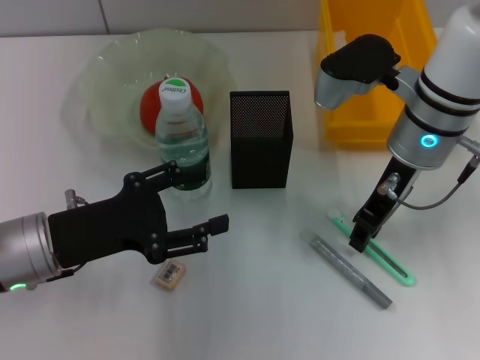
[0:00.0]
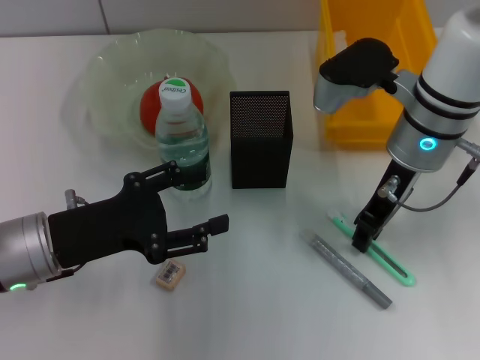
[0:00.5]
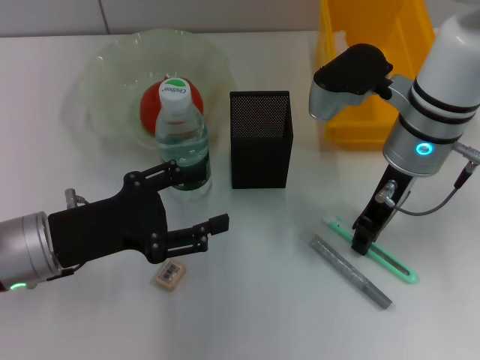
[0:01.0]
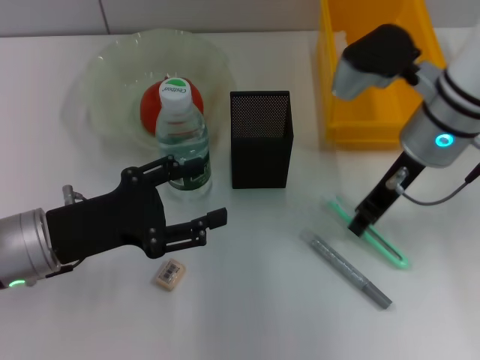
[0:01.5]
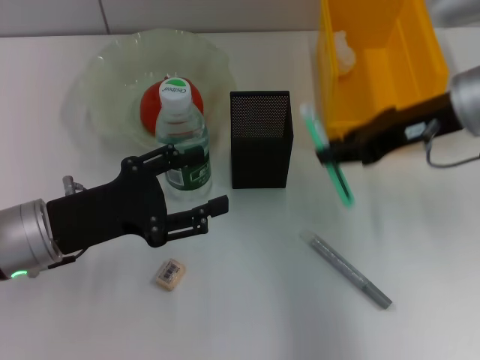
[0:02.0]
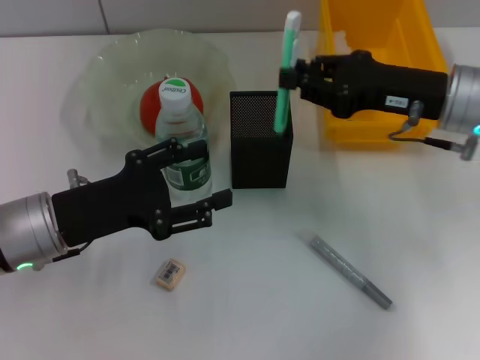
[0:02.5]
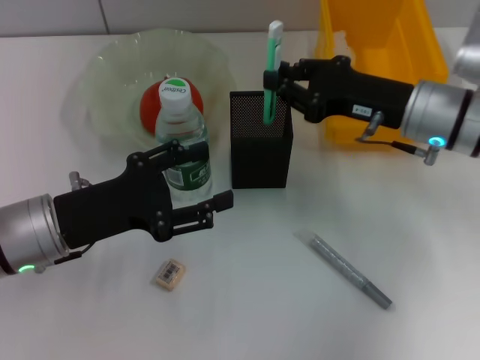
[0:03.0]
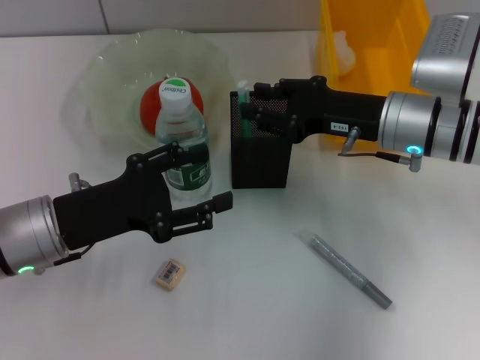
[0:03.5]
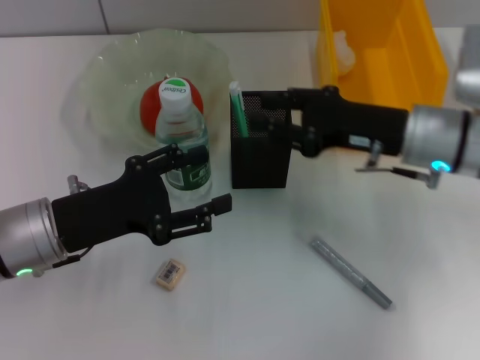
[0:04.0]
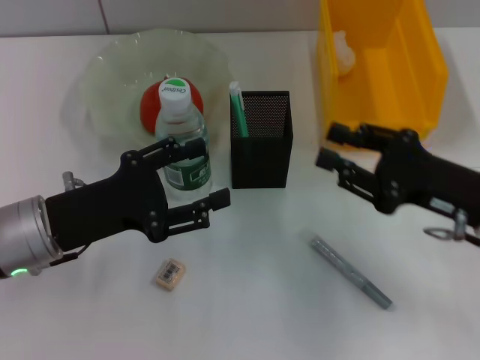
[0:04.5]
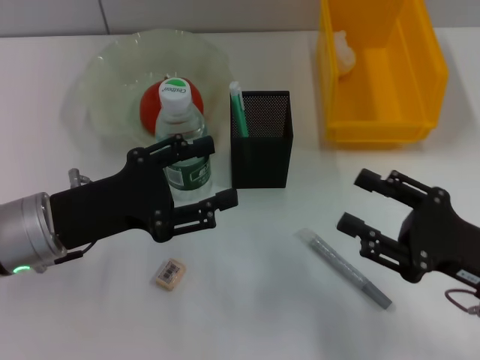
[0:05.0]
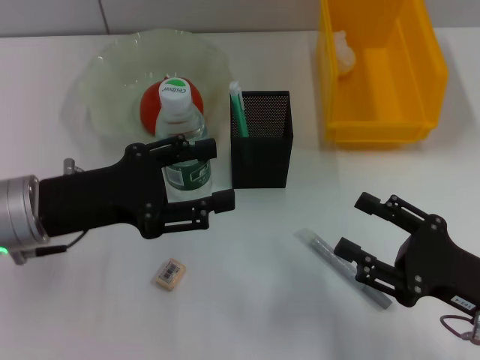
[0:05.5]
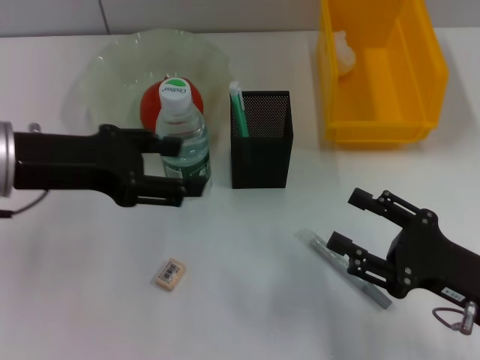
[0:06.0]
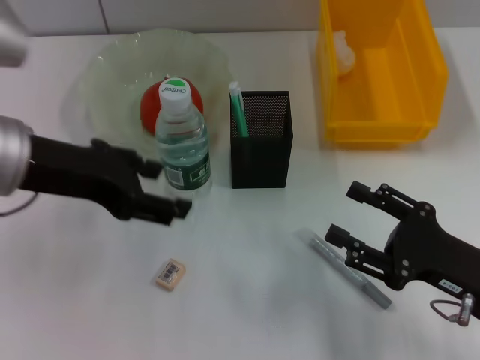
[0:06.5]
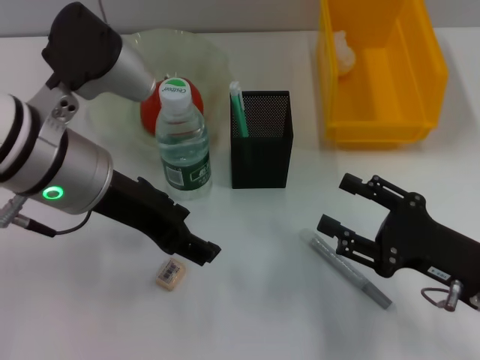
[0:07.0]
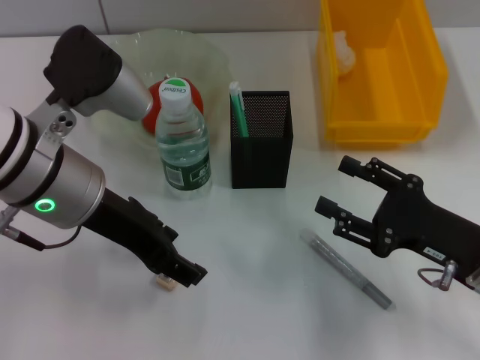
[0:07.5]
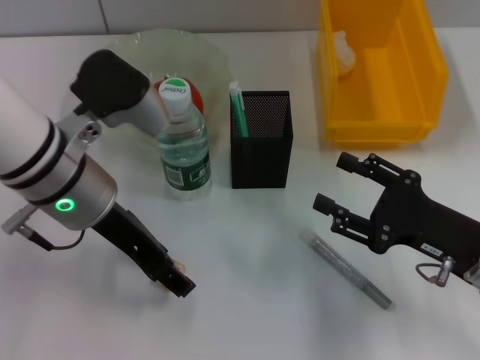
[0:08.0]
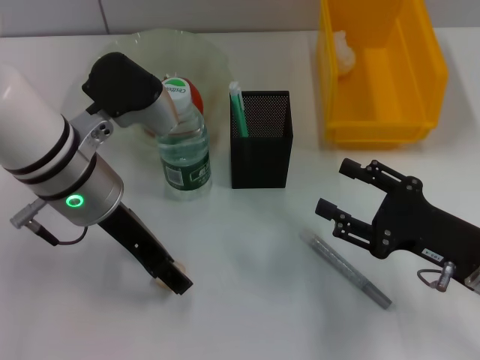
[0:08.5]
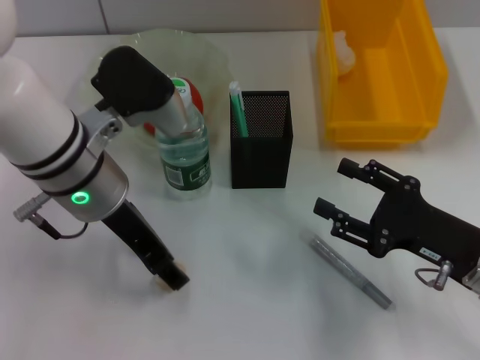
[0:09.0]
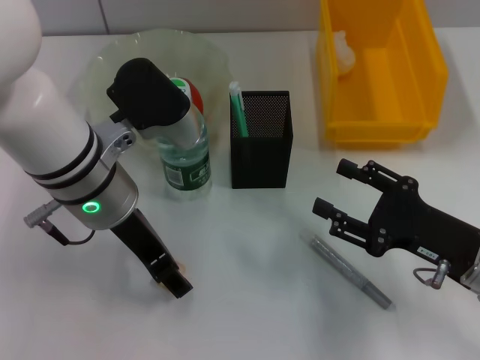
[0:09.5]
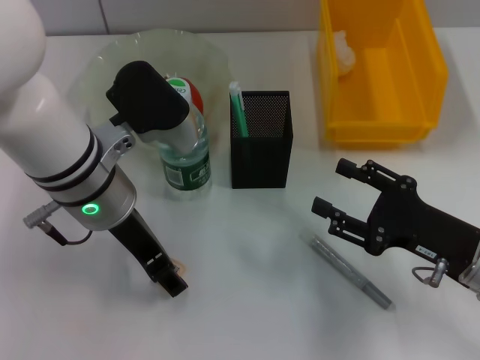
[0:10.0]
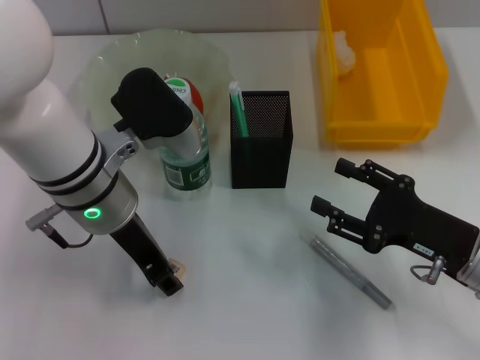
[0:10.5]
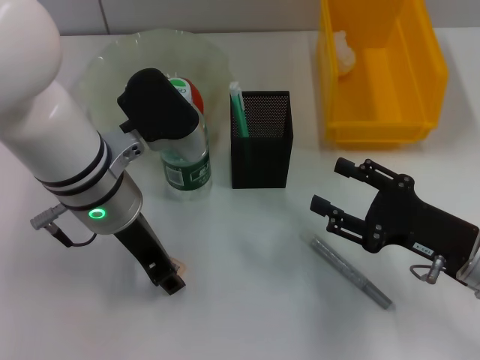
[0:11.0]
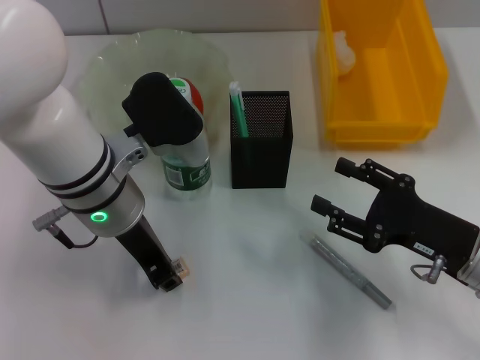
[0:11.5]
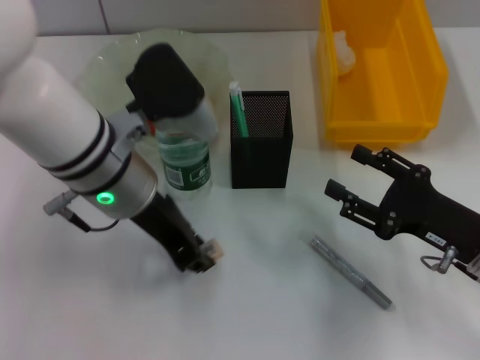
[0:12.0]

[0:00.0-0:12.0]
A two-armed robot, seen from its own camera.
Step, 0:01.5 to 0:03.5: Place the blue utility knife into the pen holder with the right hand.
Step, 0:04.0 to 0:11.5: Grab the eraser with the right hand.
0:00.0 to 0:02.0: The right gripper moves to the right, about 5 cm.
0:02.0 to 0:04.0: The right gripper is displaced downward by approximately 10 cm, and opens its fingers.
0:04.0 to 0:06.0: The right gripper shifts roughly 20 cm backward, downward and to the right, and opens its fingers, while the left gripper travels upward by approximately 10 cm.
0:06.0 to 0:08.0: The left gripper shifts roughly 5 cm to the right.
0:08.0 to 0:10.0: The grippers stay close to where they were, moving slightly.
0:10.0 to 0:12.0: The left gripper closes up.

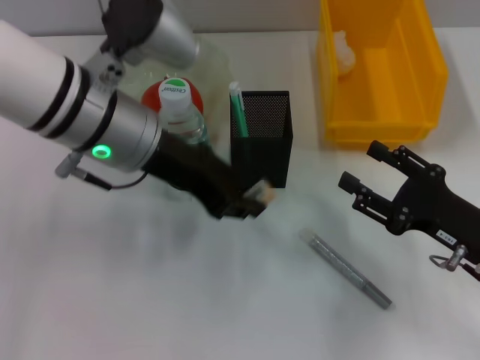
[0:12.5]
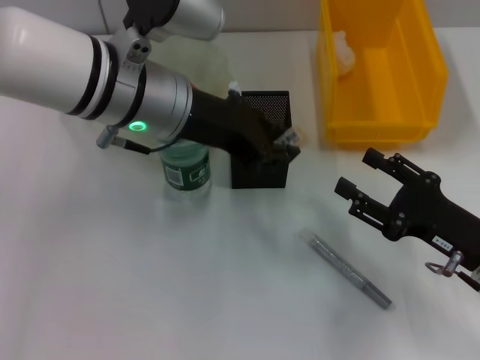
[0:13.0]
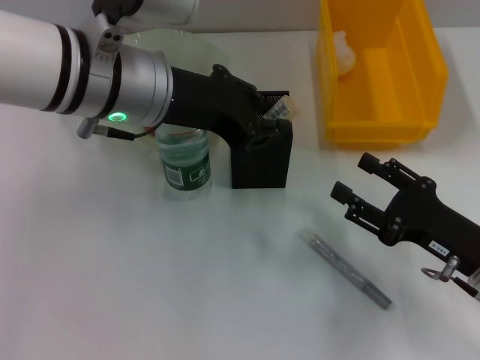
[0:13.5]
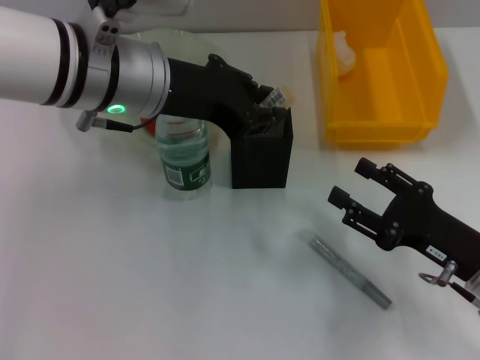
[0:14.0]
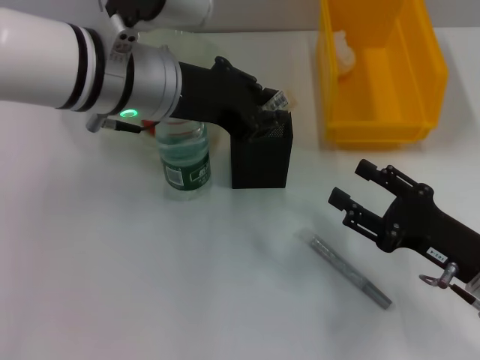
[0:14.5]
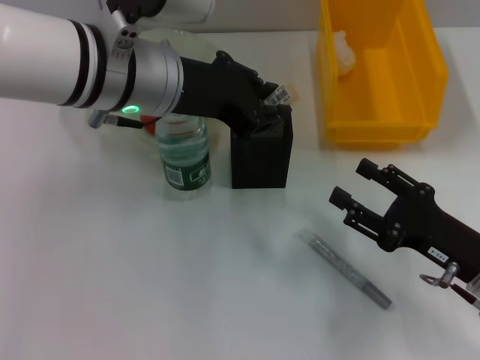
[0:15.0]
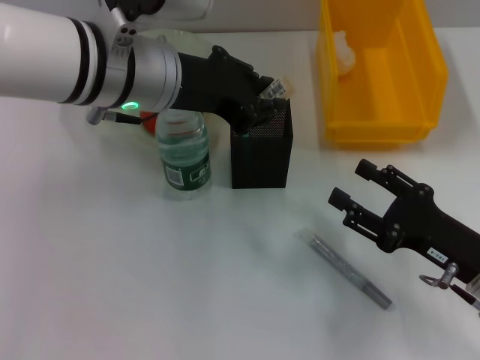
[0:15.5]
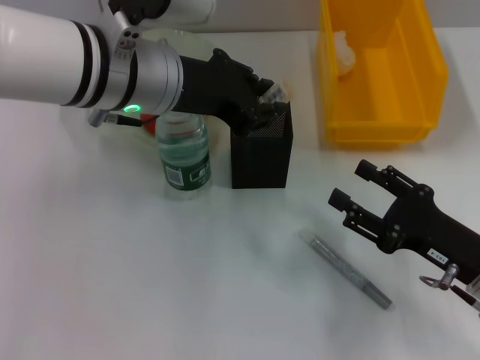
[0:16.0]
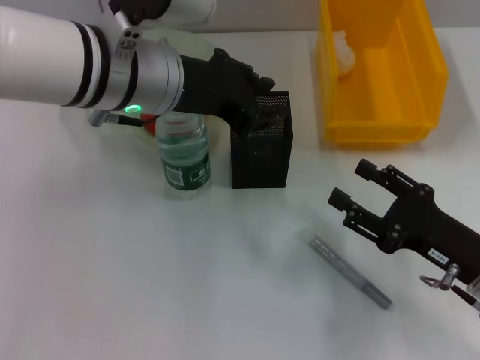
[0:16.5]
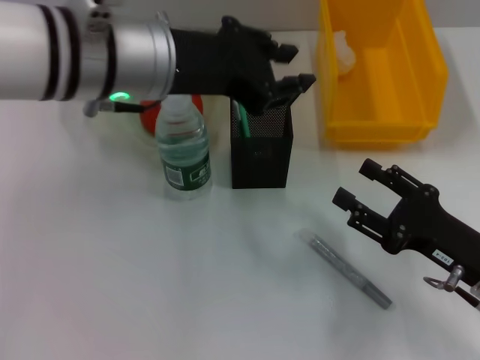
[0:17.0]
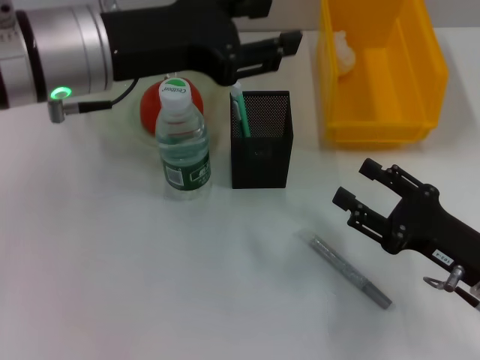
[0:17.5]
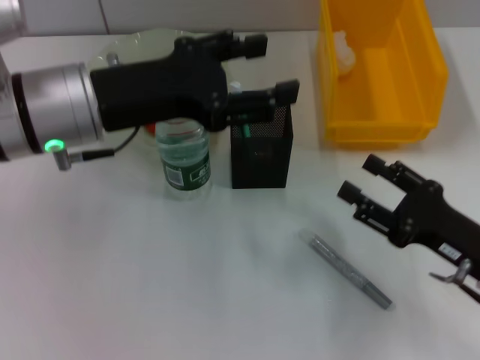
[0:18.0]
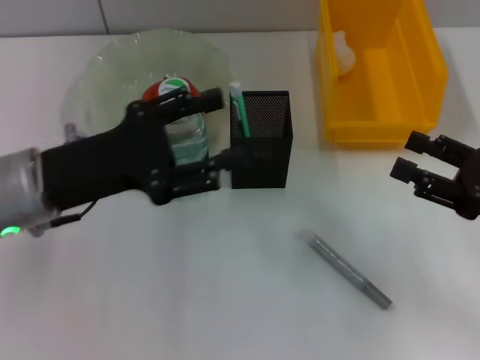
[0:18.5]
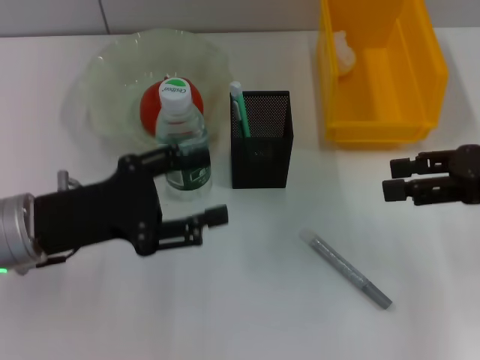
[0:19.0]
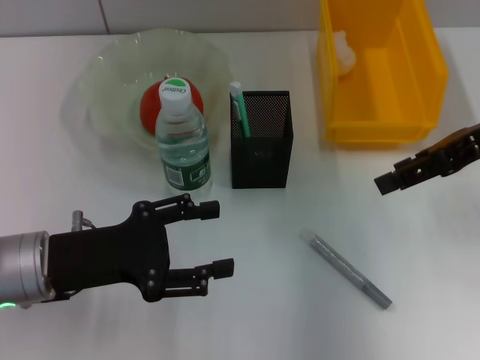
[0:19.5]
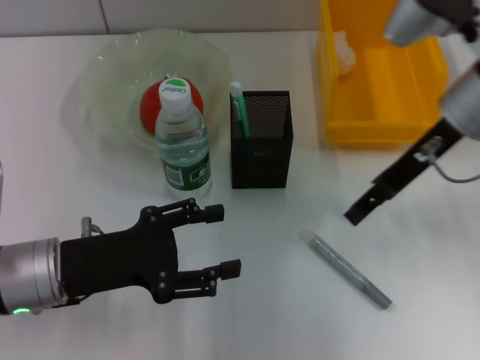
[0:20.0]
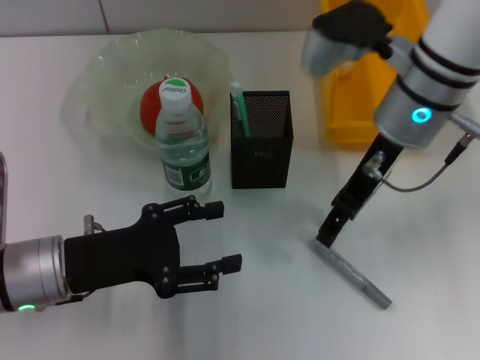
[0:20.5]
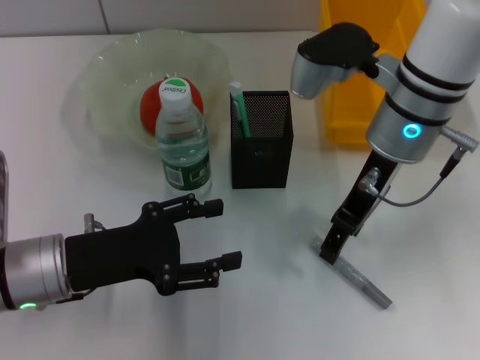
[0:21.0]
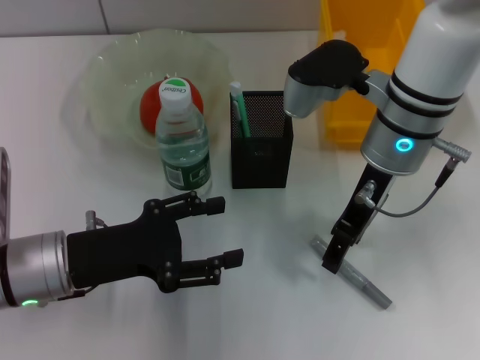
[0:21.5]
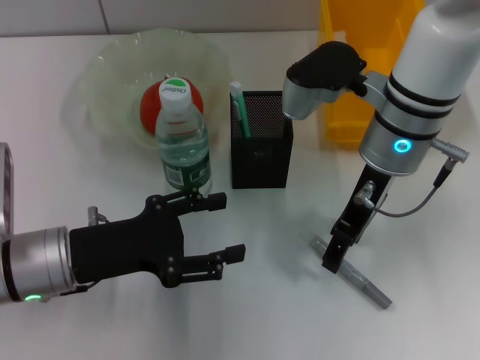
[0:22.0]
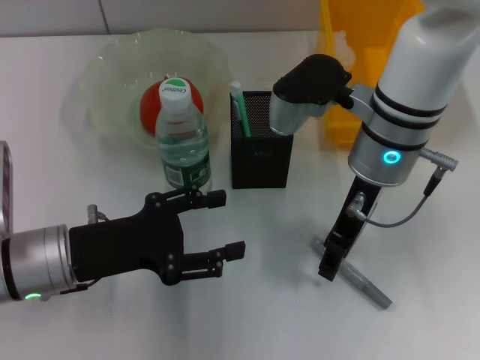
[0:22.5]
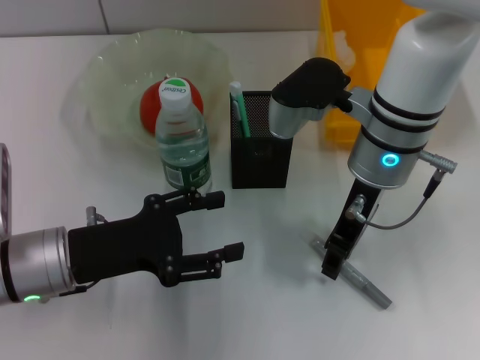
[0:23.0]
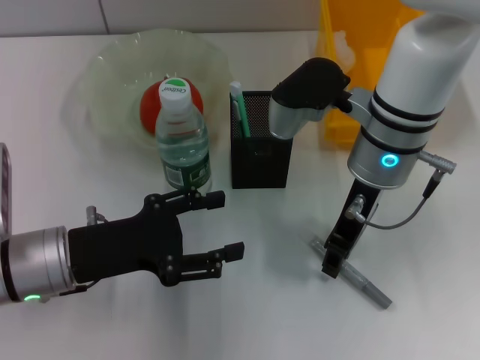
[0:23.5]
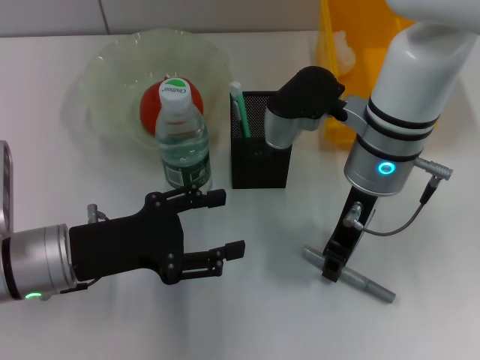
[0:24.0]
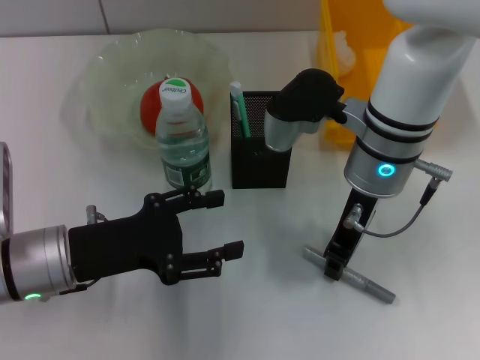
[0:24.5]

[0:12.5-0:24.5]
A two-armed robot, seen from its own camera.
Step, 0:12.5 to 0:16.0: Put the eraser into the pen holder with the right hand.
0:14.5 to 0:16.5: Both grippers stay put.
0:16.5 to 0:18.5: The right gripper is displaced upward and to the right by roughly 10 cm, while the left gripper moves to the left, downward and backward, approximately 15 cm, and opens.
0:18.5 to 0:20.5: The right gripper travels to the left, forward and upward by about 25 cm. The left gripper moves downward, some 5 cm.
0:22.5 to 0:24.5: The right gripper closes up.

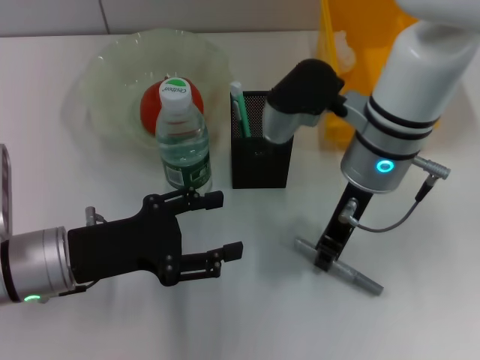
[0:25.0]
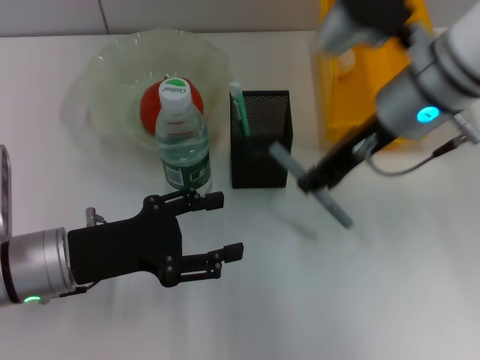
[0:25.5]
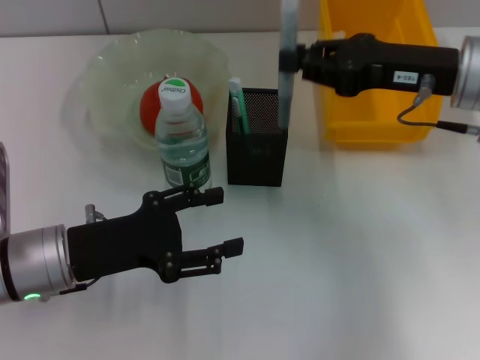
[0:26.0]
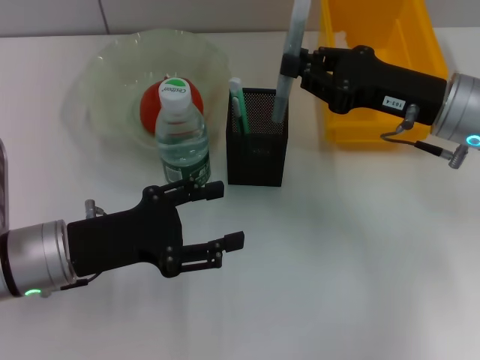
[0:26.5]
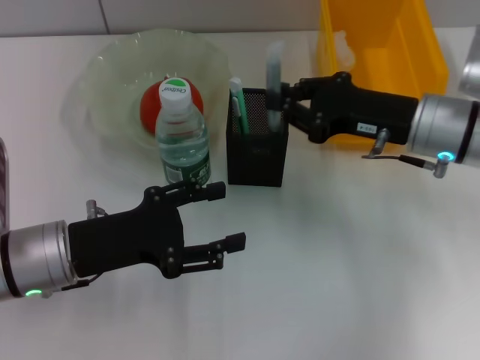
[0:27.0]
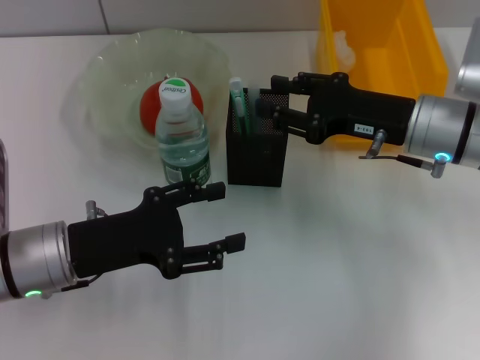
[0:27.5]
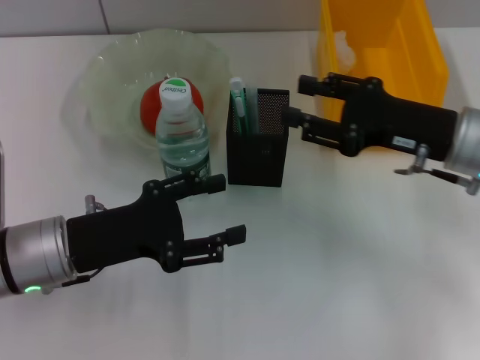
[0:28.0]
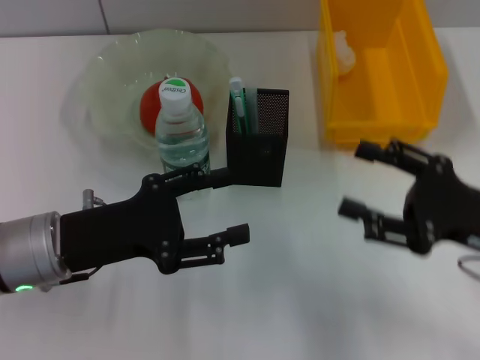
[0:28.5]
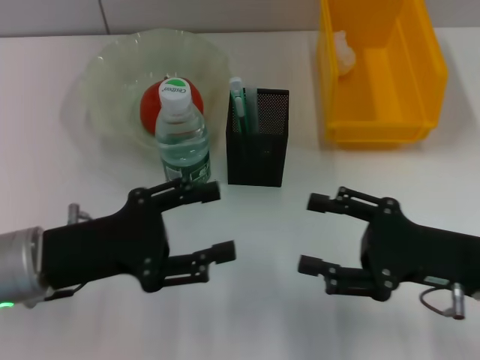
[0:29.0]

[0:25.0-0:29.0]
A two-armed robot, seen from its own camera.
Step, 0:25.0 to 0:27.0: Place the gray glue into the pen holder with the right hand.
0:25.0 to 0:27.0: The right gripper moves to the right, roughly 10 cm.
0:27.0 to 0:29.0: The right gripper is displaced backward by approximately 10 cm, and opens up.
